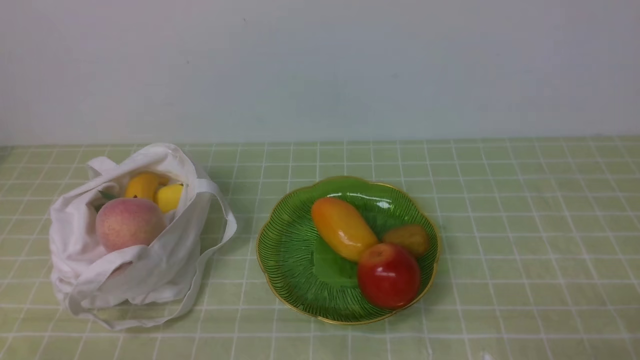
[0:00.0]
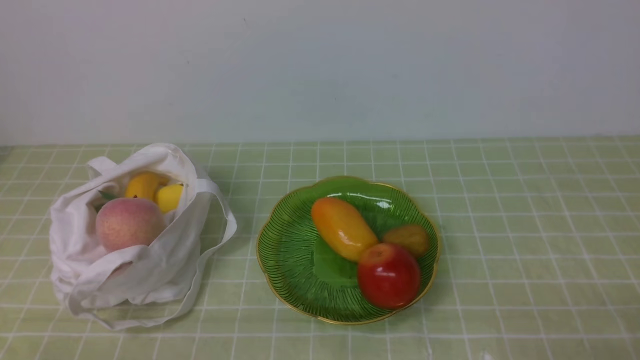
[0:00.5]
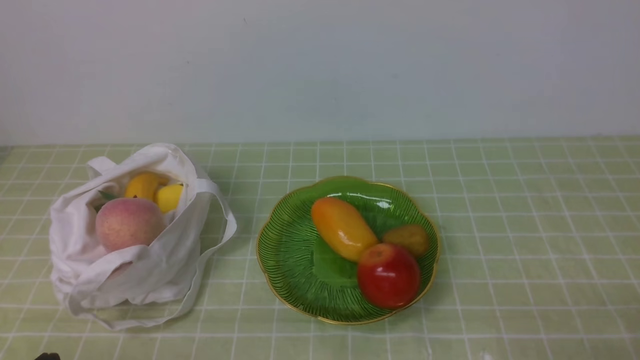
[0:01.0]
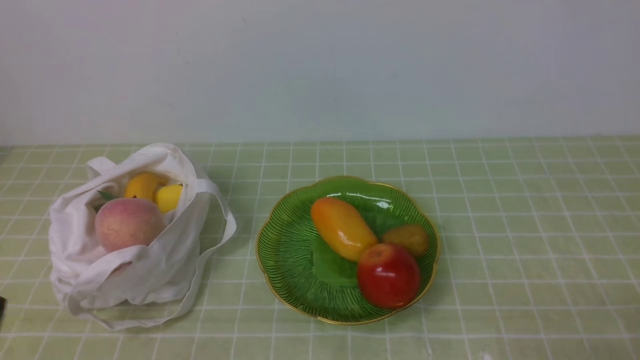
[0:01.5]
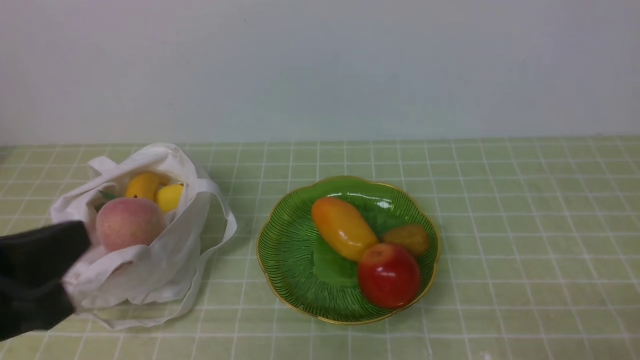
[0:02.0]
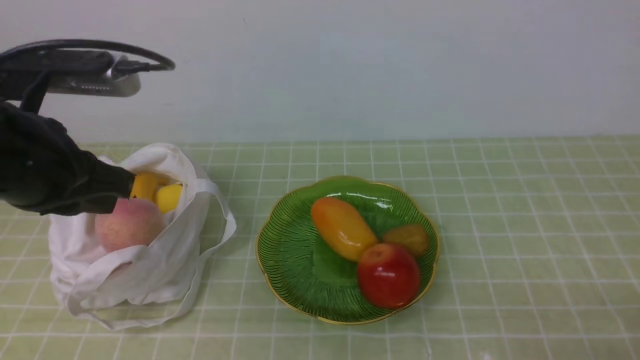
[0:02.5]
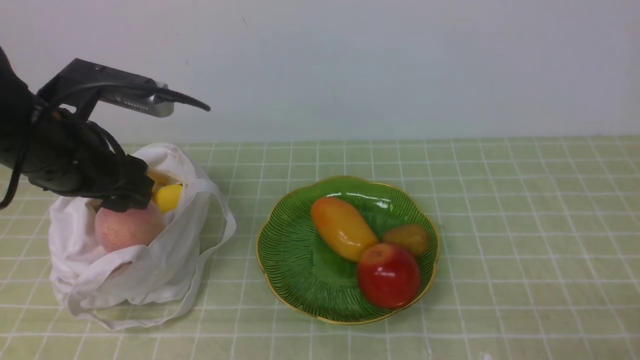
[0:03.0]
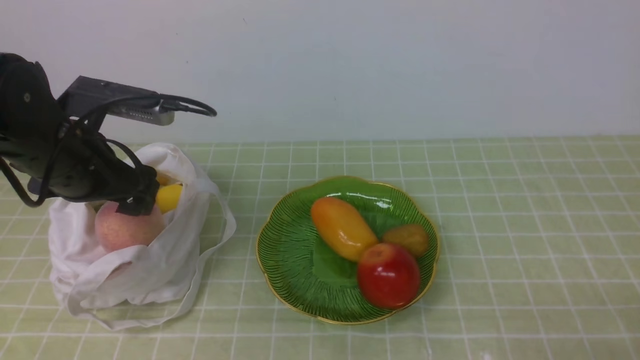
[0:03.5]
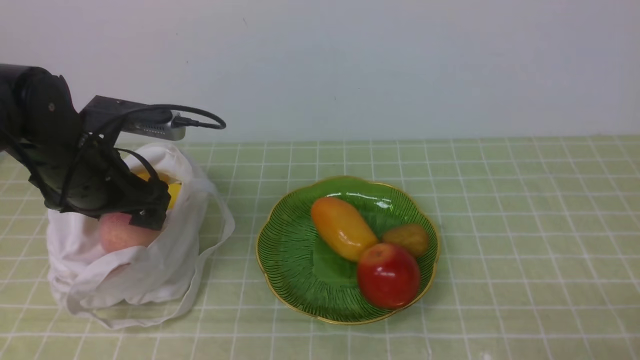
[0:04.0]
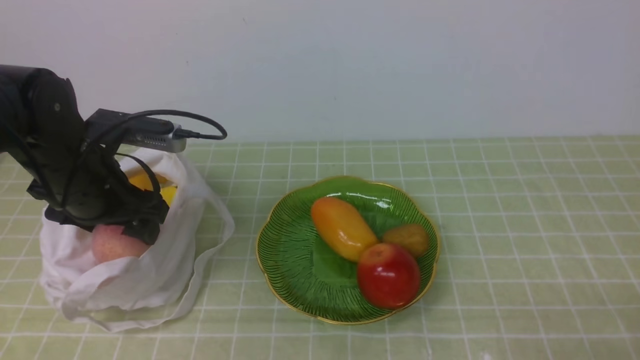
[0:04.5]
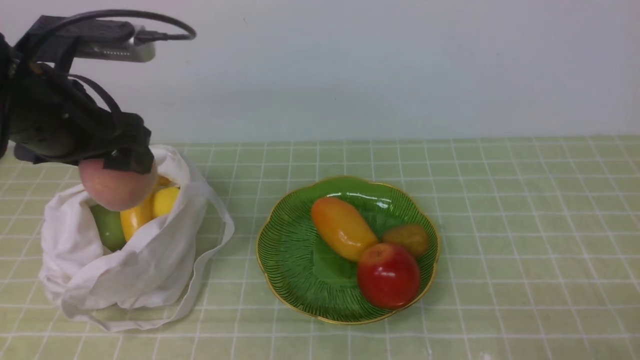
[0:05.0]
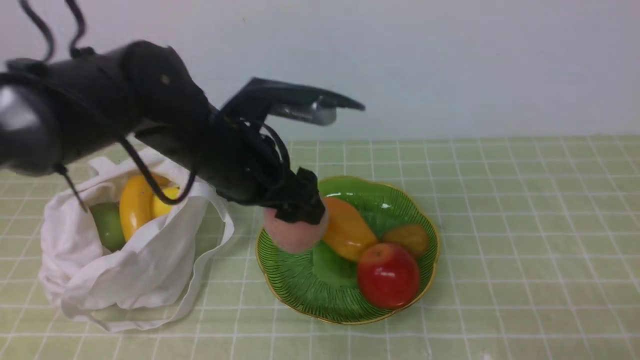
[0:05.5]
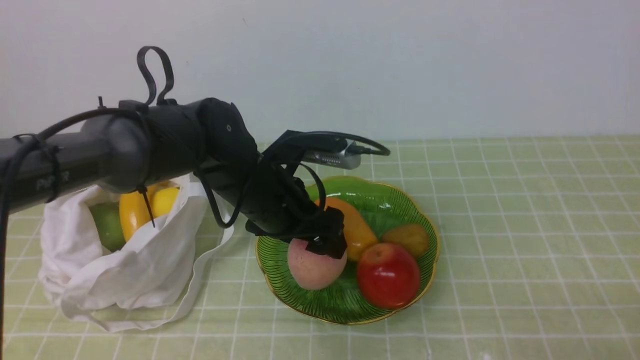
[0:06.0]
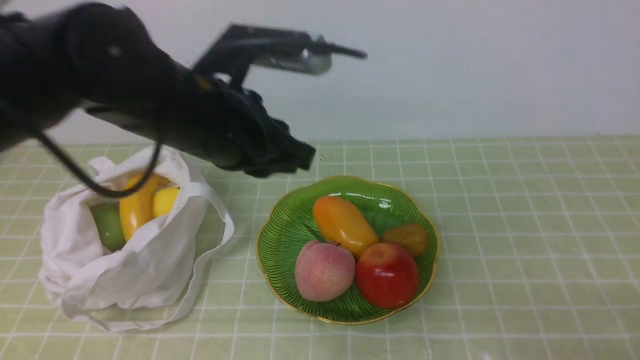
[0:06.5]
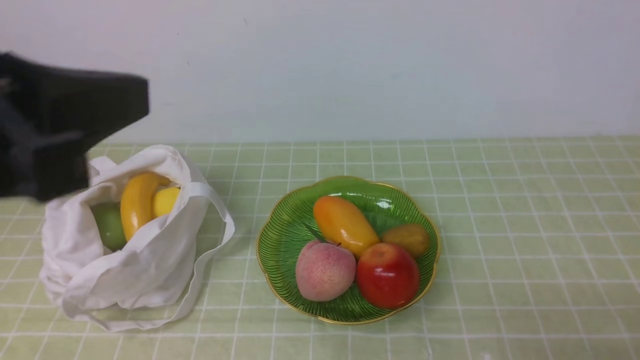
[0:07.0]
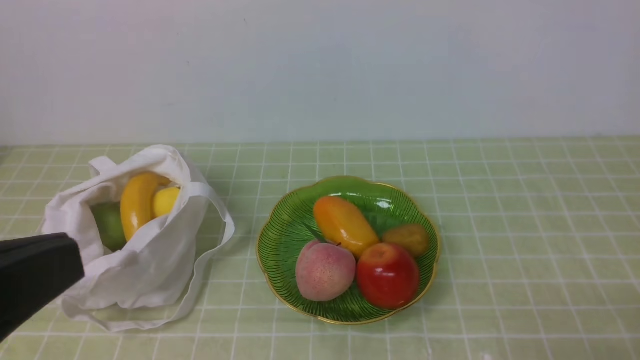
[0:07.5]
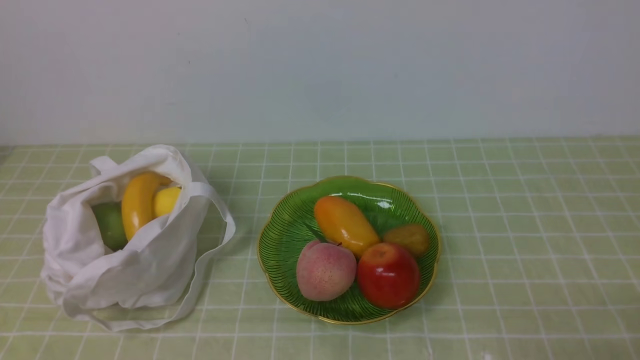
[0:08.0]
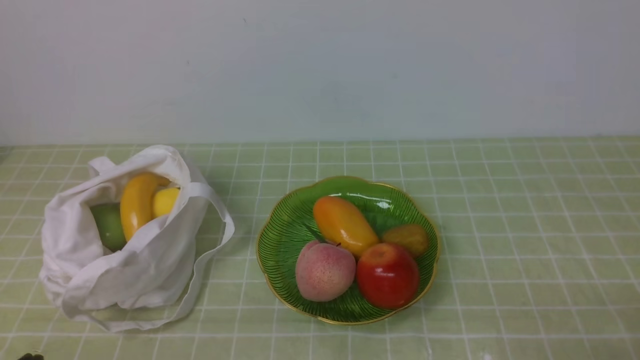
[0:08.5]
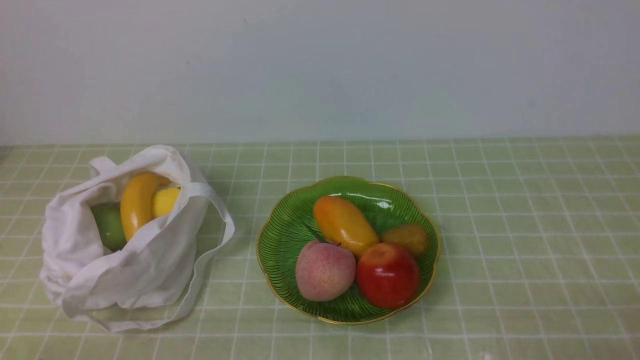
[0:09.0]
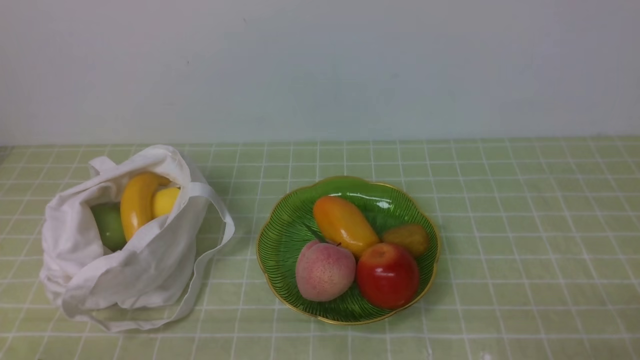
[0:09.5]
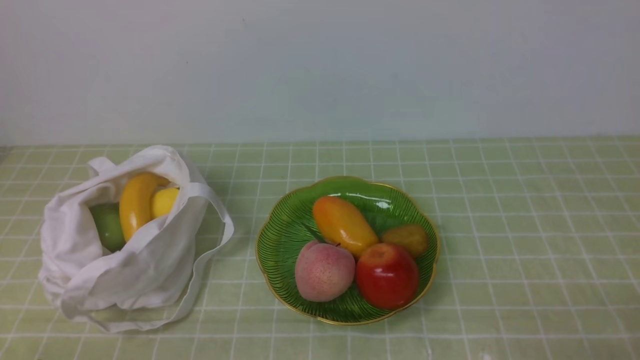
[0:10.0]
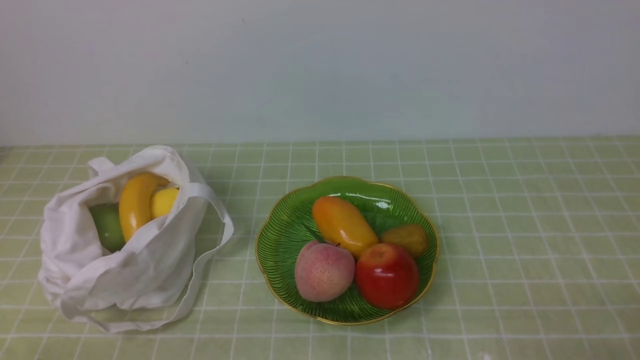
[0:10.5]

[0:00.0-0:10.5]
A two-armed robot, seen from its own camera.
Step, 0:00.0 to 0:04.5: use the left arm to grab a peach from the bag.
Step, 0:05.0 to 0:06.0: use the left arm to put the peach into the empty plate on the right.
0:00.0 to 0:02.0: The left gripper travels upward by roughly 15 cm.
0:02.0 to 0:04.0: The left gripper heads forward, covering approximately 20 cm, and opens its fingers.
0:04.0 to 0:06.5: The left gripper travels to the right and upward by approximately 15 cm, and closes up.
0:06.5 to 0:08.5: The left gripper travels backward, to the left and downward by about 30 cm.

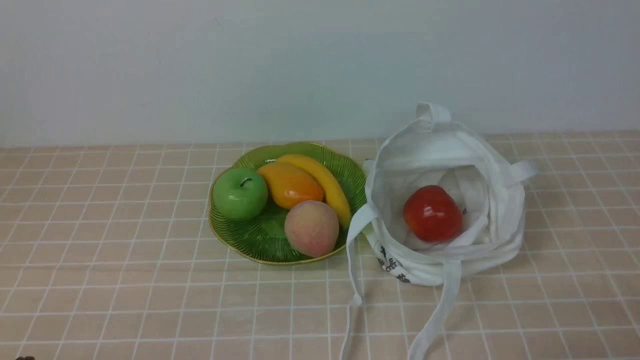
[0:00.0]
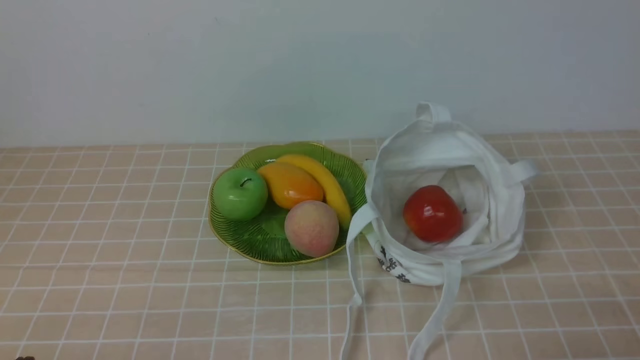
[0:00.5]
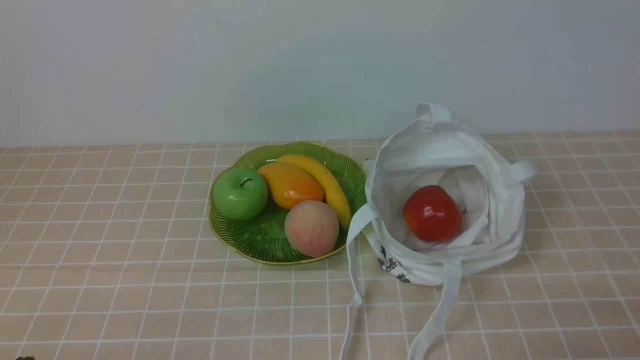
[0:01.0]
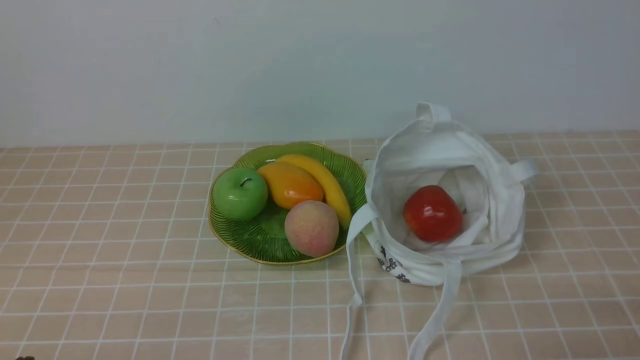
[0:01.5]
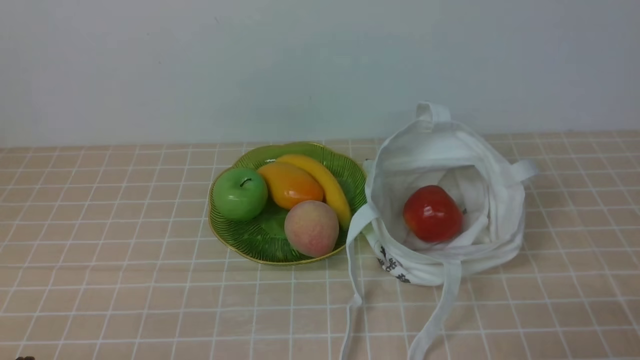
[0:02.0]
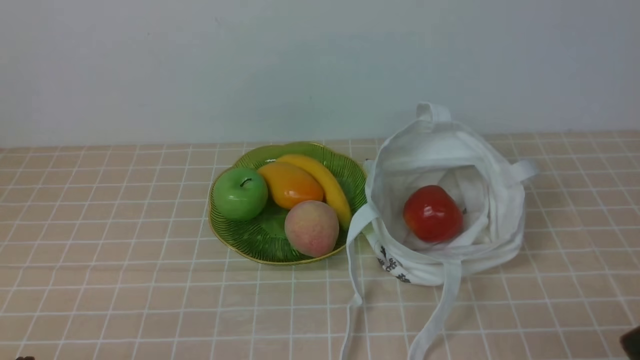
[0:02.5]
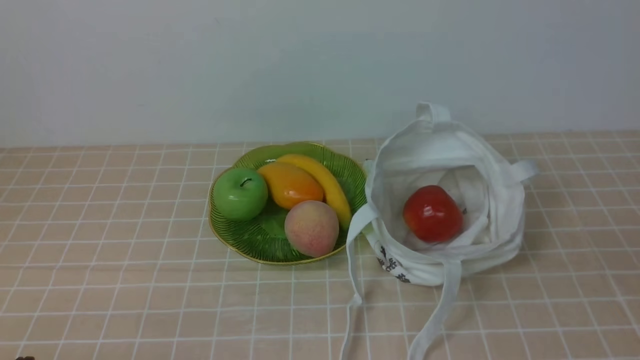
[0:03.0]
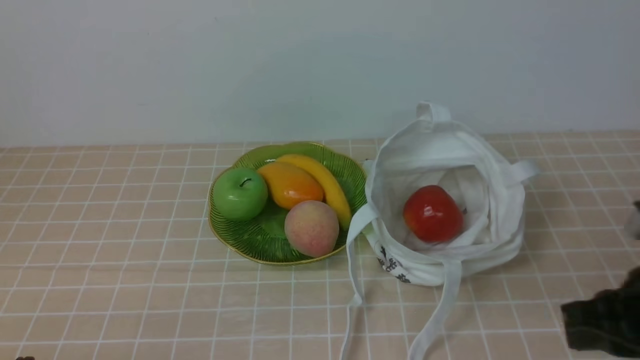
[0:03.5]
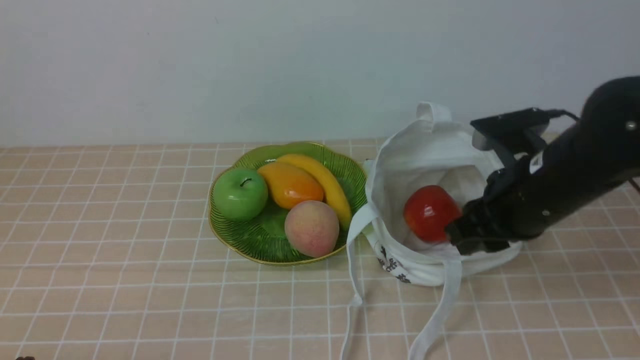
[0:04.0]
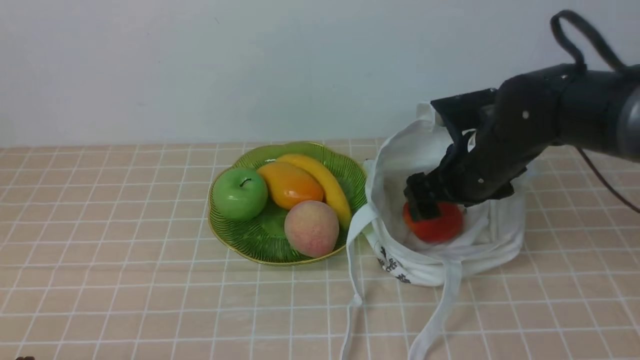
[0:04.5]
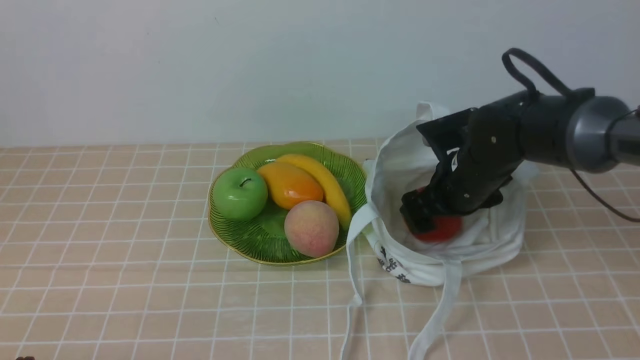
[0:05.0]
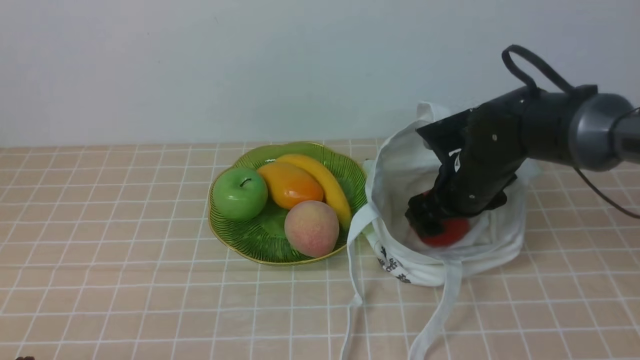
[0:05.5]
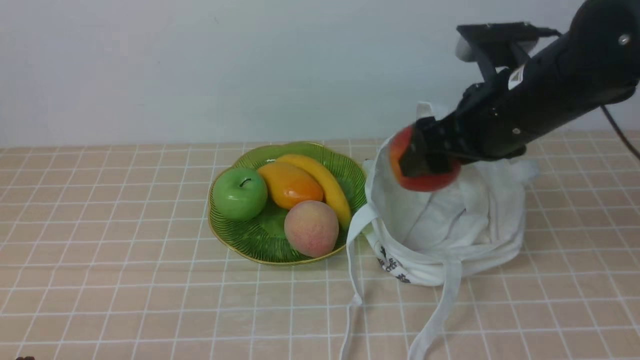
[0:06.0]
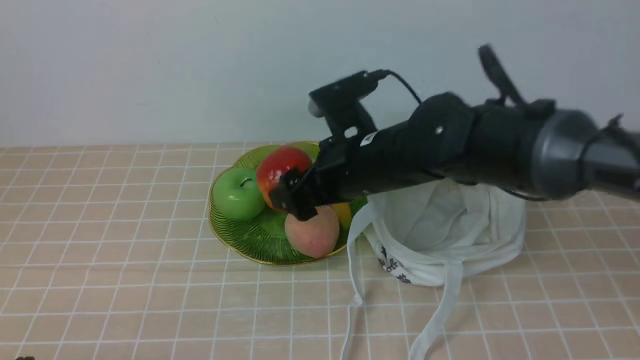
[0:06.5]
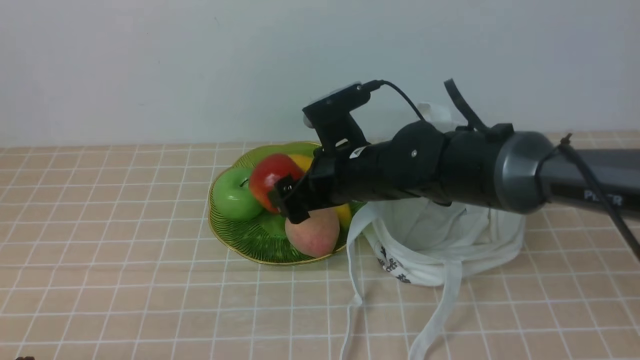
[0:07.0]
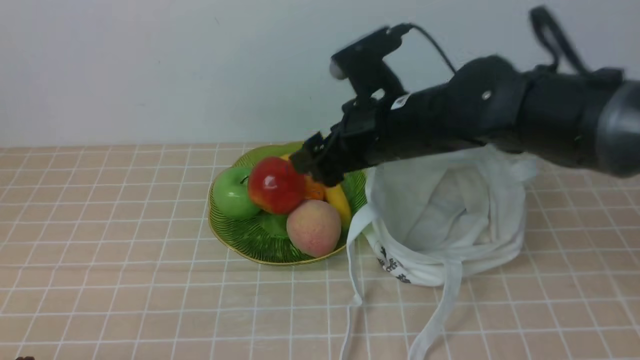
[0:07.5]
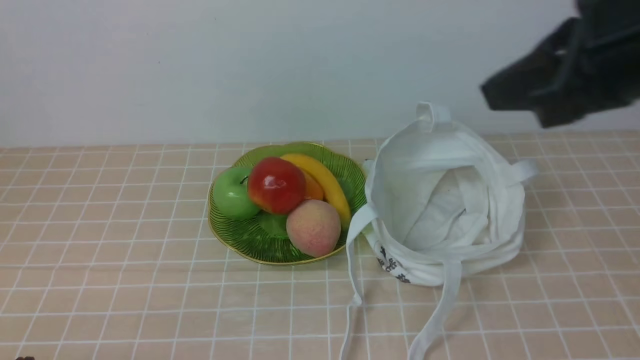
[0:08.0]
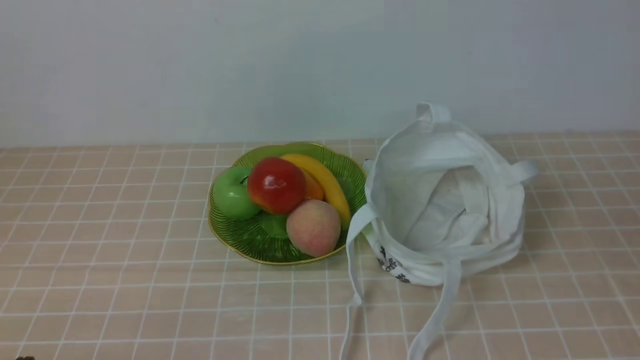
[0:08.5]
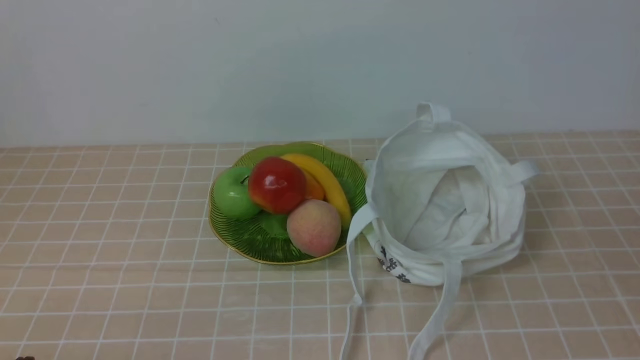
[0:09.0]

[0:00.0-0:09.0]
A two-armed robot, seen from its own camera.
Step, 0:00.0 to 0:05.5: use the right arm to grab an apple from the bag.
Step, 0:06.5 to 0:07.0: use the right arm to put the apple into the empty plate on the left.
0:02.0 to 0:04.5: The right gripper moves forward and to the left, approximately 35 cm, and opens.
0:04.5 to 0:07.0: The right gripper heads to the left, covering about 15 cm.
0:07.0 to 0:09.0: The right gripper goes about 40 cm backward and to the right, and closes.
